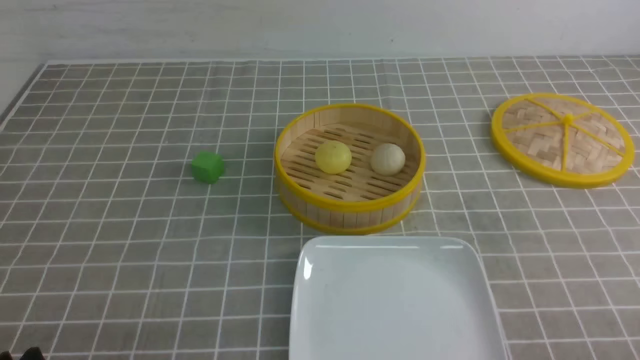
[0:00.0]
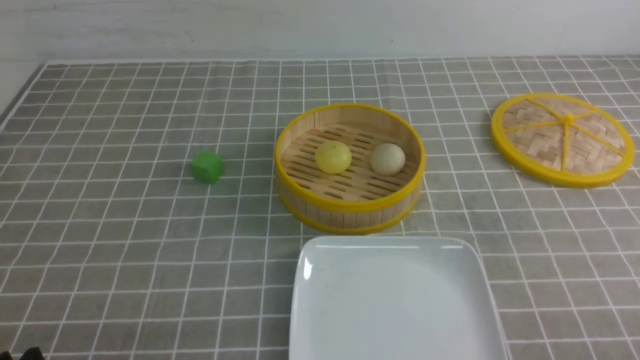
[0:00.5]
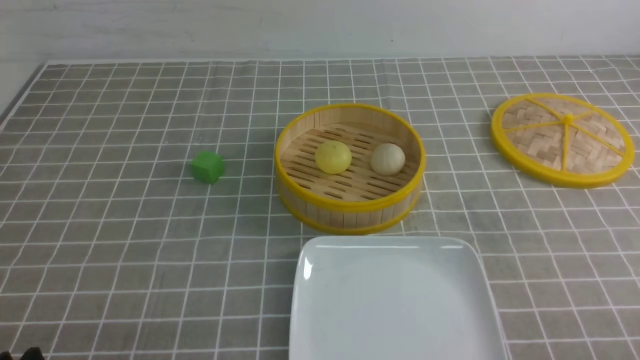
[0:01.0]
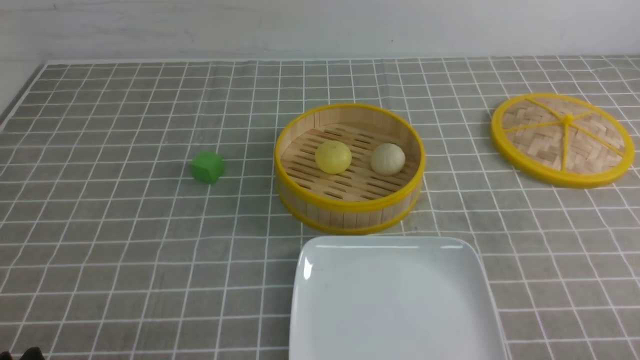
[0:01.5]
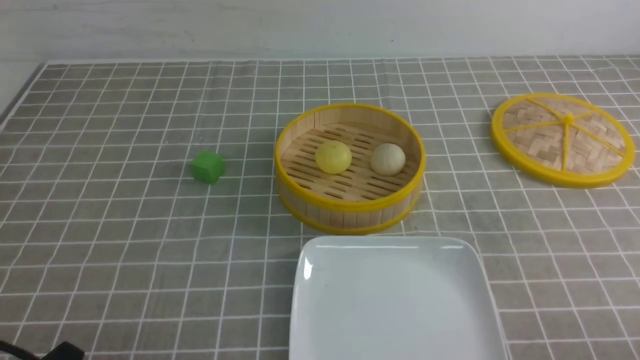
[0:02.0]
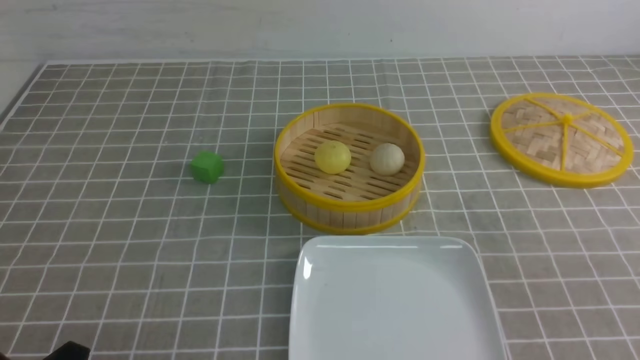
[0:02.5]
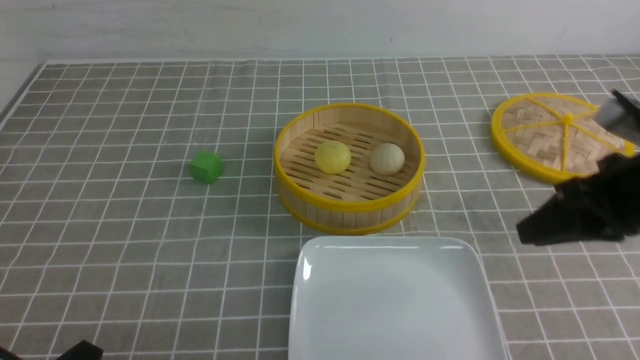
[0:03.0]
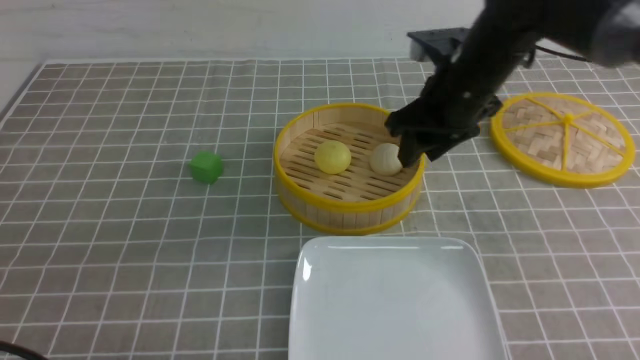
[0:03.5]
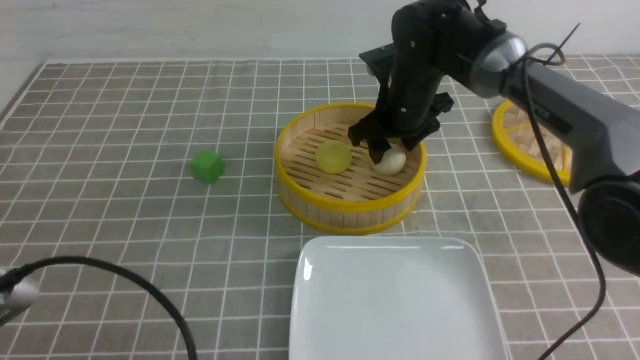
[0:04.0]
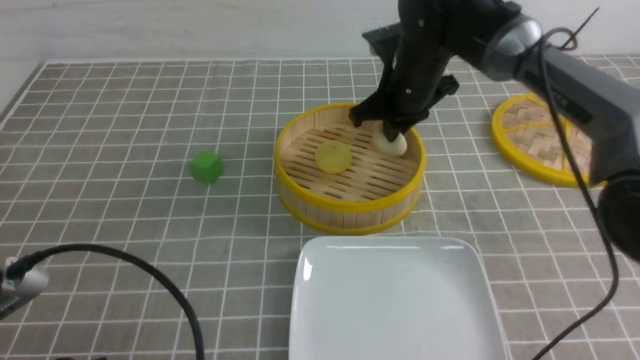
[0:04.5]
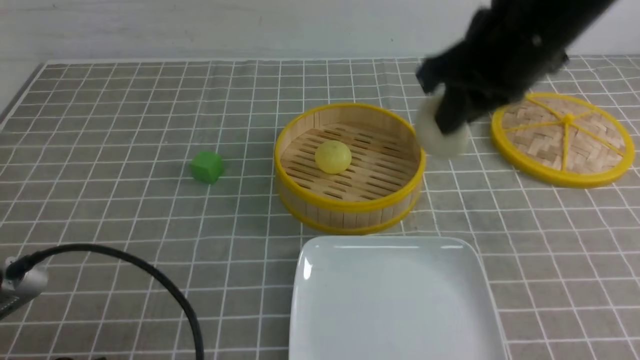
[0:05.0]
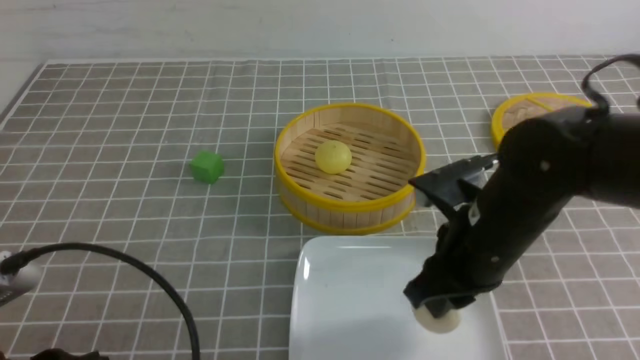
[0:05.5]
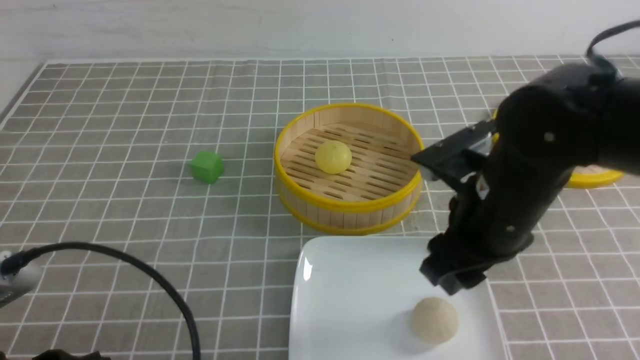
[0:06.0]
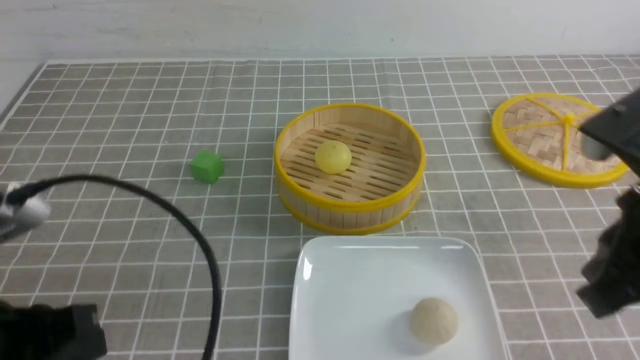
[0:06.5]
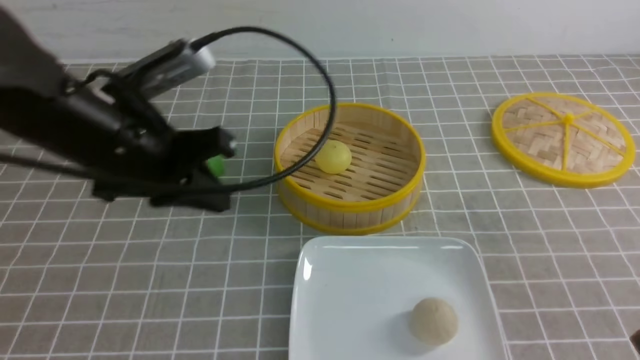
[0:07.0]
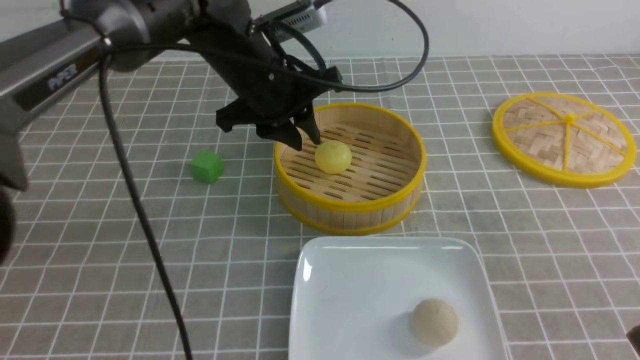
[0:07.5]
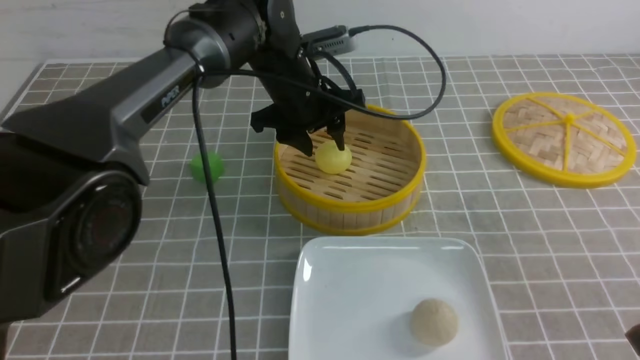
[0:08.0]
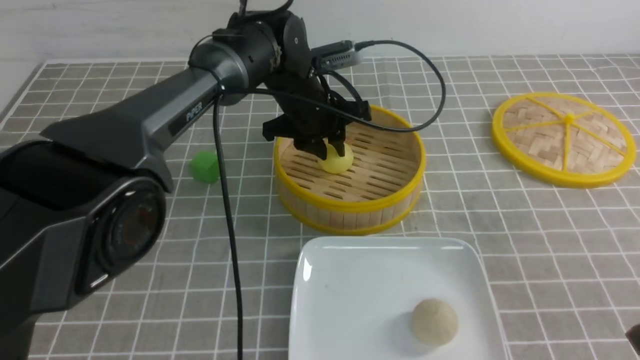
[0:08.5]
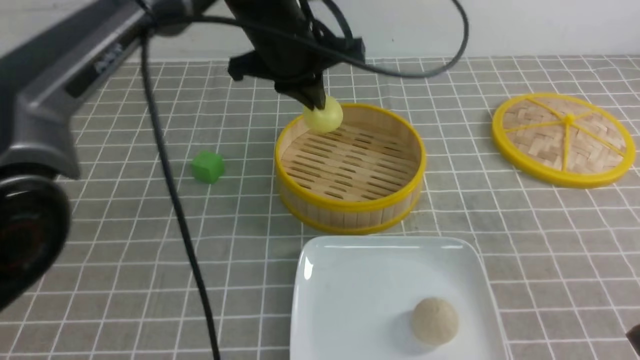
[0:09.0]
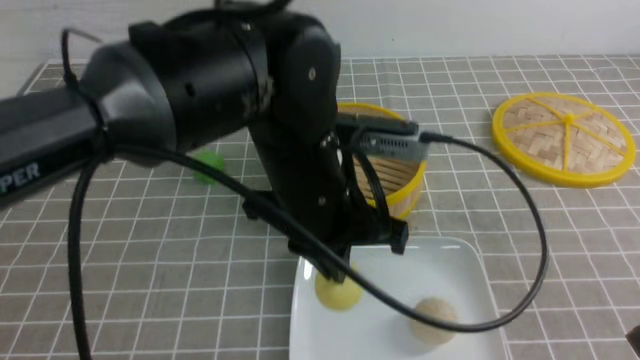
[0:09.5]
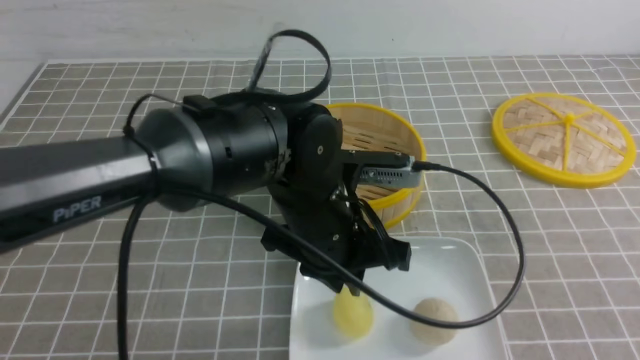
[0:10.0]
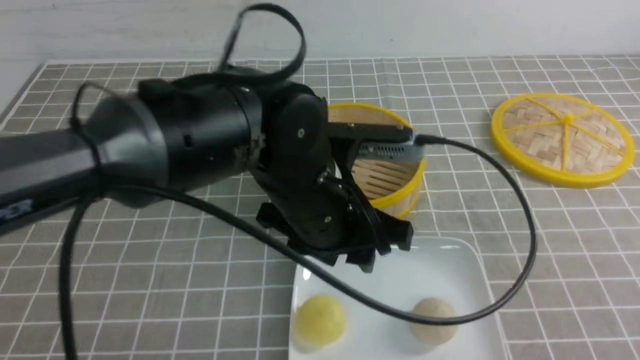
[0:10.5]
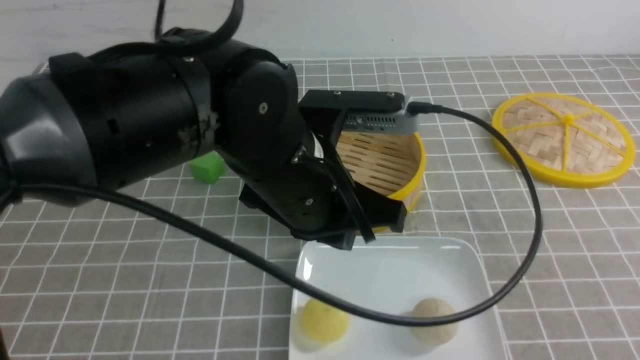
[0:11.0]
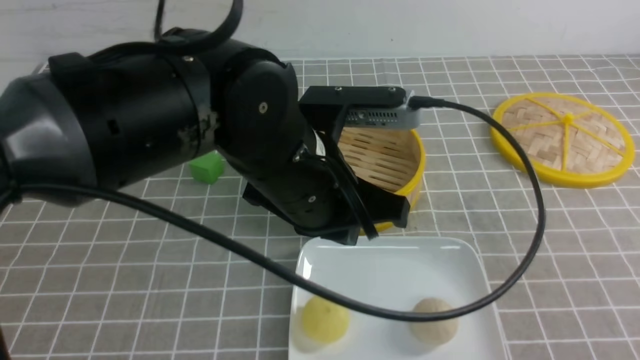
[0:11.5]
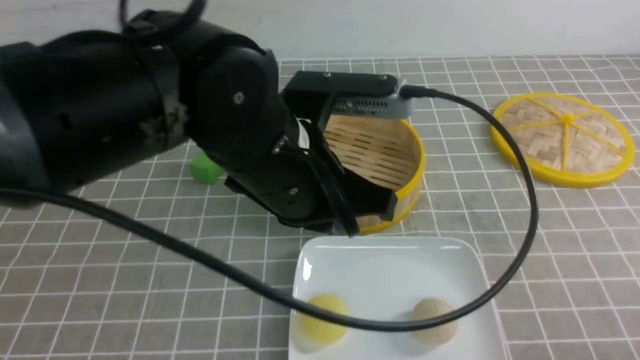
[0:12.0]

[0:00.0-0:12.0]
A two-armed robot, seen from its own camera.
Step, 0:00.0 to 0:04.0: use the right arm to grab the steamed stuffed bun that is closest to it.
Step, 0:04.5 to 0:05.5: use the right arm to put the steamed stuffed bun into the plate.
Step, 0:06.0 to 0:08.5: use the left arm to grab the steamed stuffed bun that is closest to it.
Step, 0:09.0 to 0:10.0: use the left arm to put the steamed stuffed bun into the plate.
0:02.0 to 0:04.0: The right gripper is displaced forward and to the left by approximately 50 cm, and opens up. Meanwhile the left gripper heads upward, covering about 5 cm.
0:04.0 to 0:06.0: The right gripper travels backward by roughly 20 cm, and closes, then opens again.
0:06.0 to 0:08.0: The right gripper moves backward and to the right, roughly 20 cm, and closes. The left gripper travels forward and to the right by about 40 cm, and opens its fingers.
0:08.0 to 0:10.0: The left gripper shifts some 20 cm backward, and closes its fingers.
0:10.0 to 0:12.0: The left gripper goes some 10 cm upward, and opens and closes again; the right gripper heads downward, covering about 10 cm.

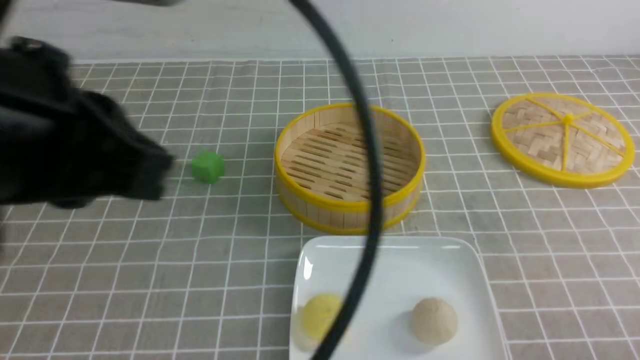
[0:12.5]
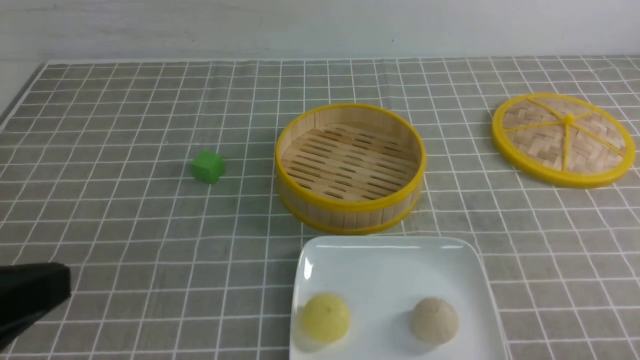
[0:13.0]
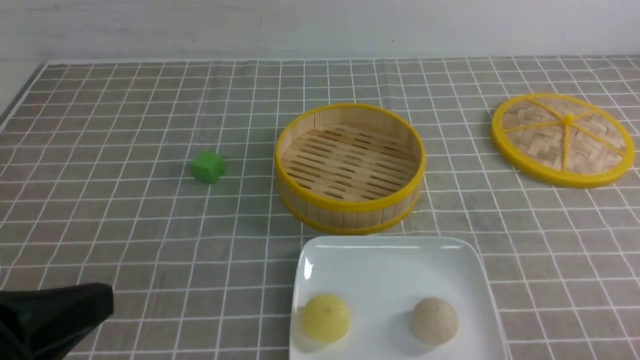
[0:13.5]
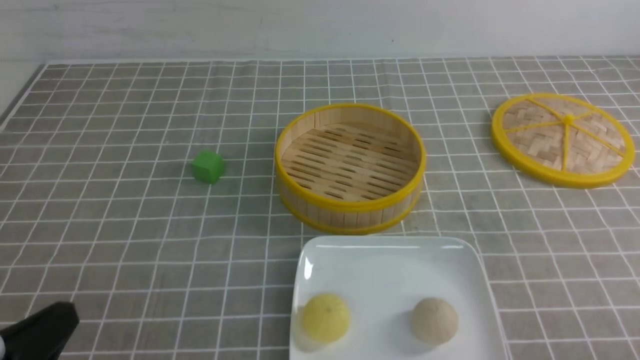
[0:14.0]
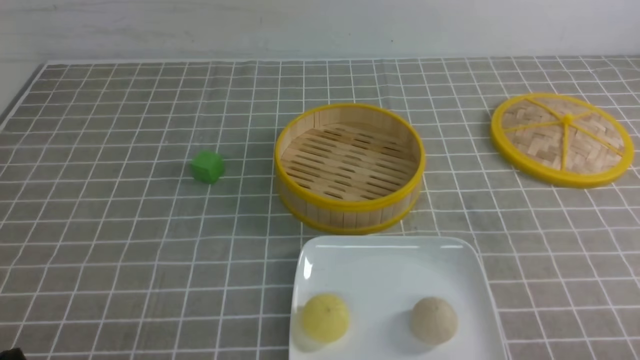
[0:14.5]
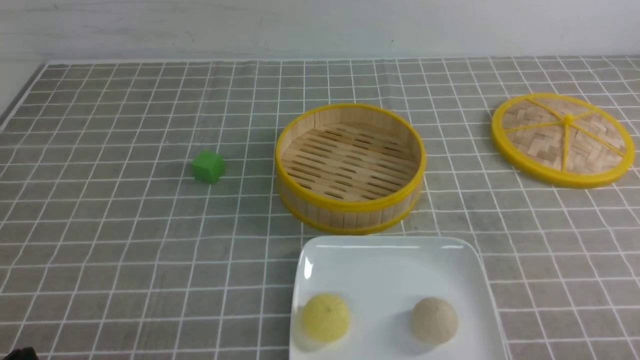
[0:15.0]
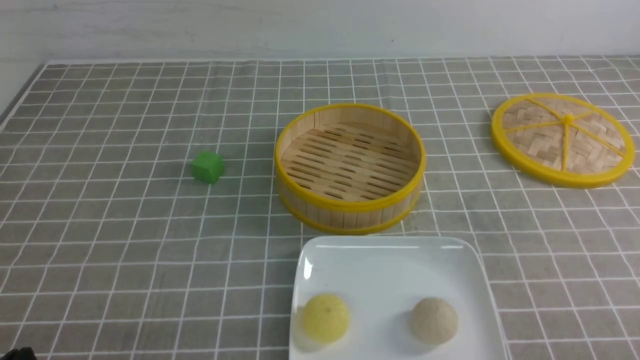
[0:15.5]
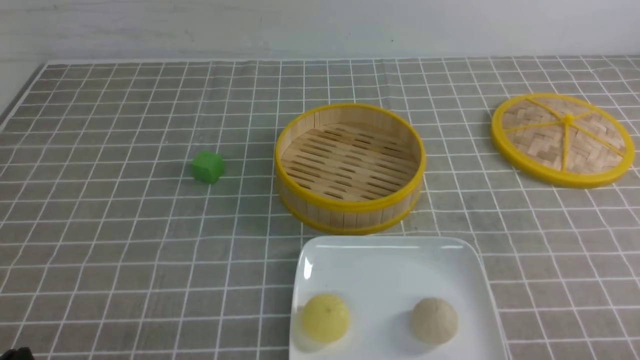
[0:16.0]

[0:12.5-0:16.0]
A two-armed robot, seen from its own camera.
0:12.5 to 0:14.5: The left gripper moves downward and to the left, about 30 cm.
0:14.5 to 0:16.0: Neither gripper changes place.
